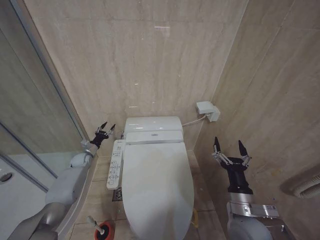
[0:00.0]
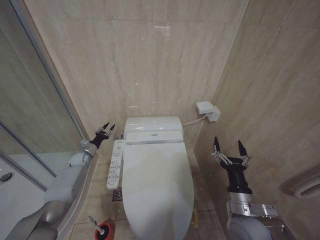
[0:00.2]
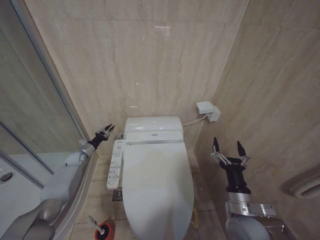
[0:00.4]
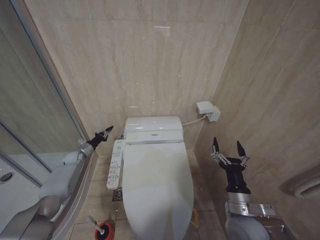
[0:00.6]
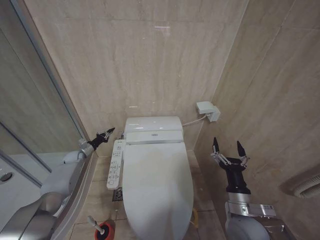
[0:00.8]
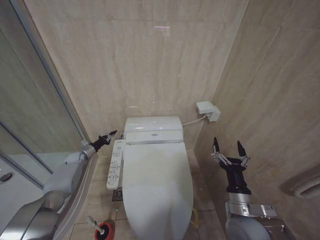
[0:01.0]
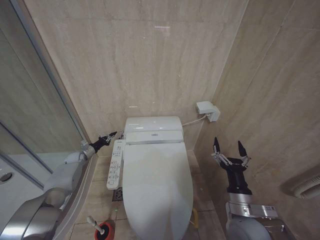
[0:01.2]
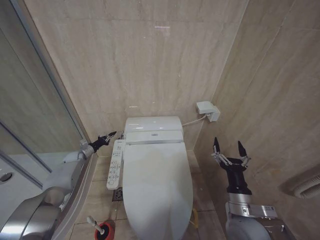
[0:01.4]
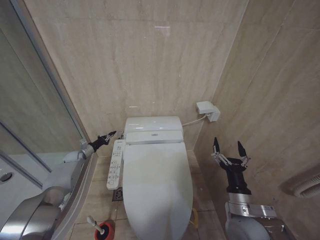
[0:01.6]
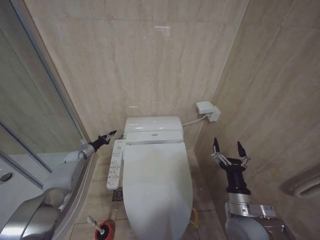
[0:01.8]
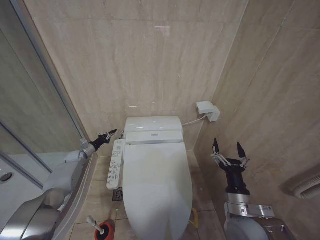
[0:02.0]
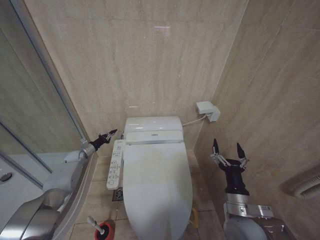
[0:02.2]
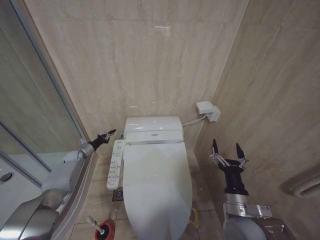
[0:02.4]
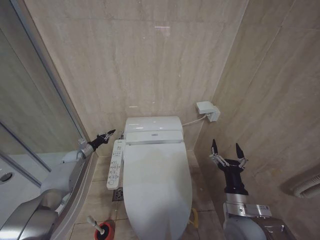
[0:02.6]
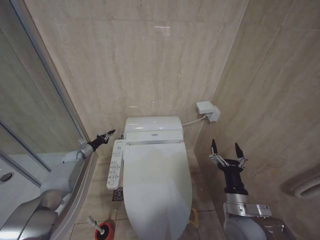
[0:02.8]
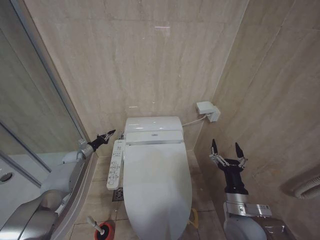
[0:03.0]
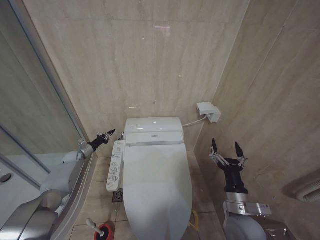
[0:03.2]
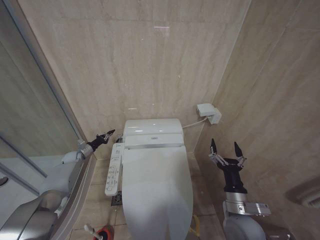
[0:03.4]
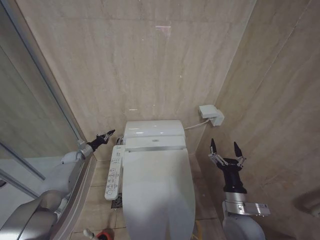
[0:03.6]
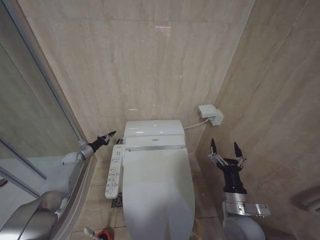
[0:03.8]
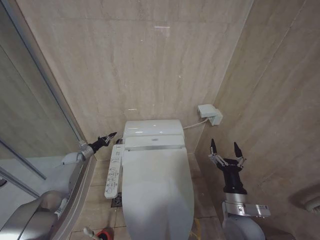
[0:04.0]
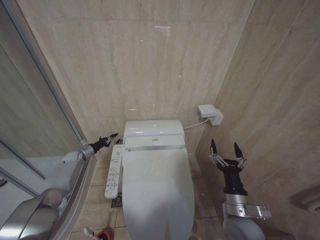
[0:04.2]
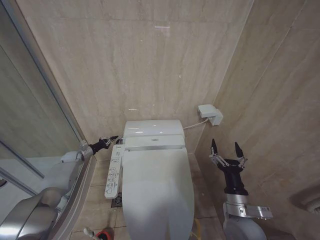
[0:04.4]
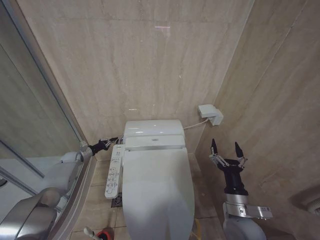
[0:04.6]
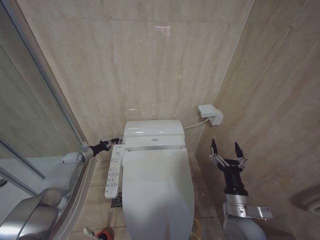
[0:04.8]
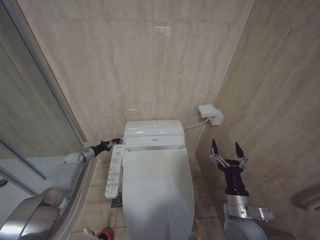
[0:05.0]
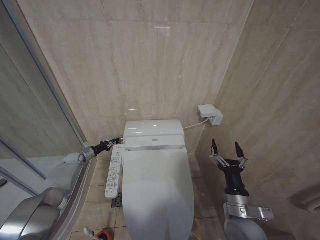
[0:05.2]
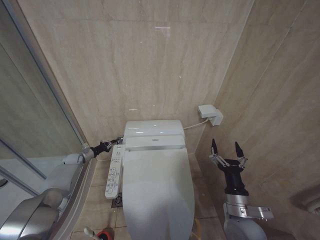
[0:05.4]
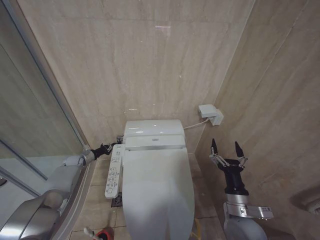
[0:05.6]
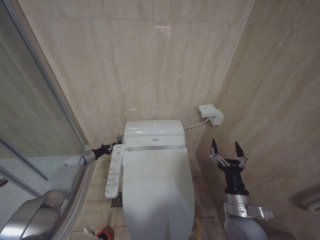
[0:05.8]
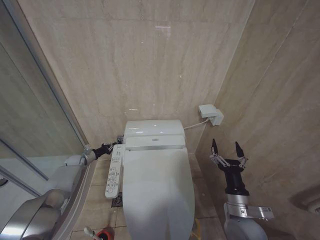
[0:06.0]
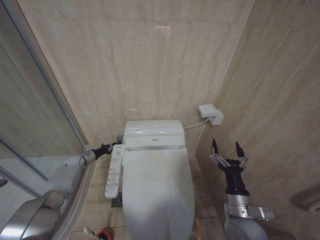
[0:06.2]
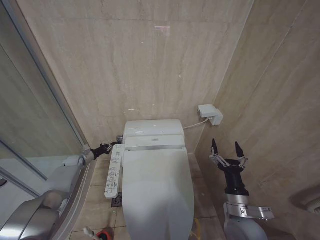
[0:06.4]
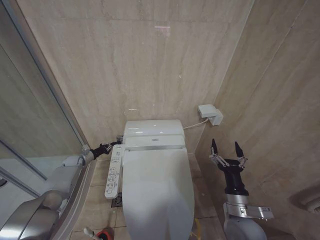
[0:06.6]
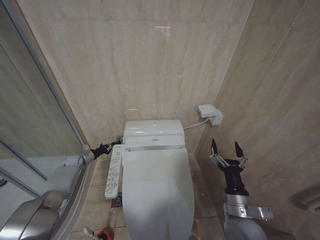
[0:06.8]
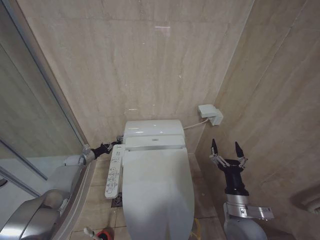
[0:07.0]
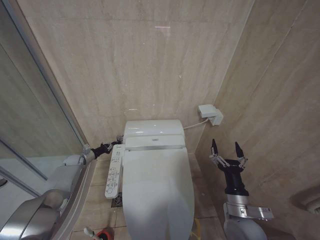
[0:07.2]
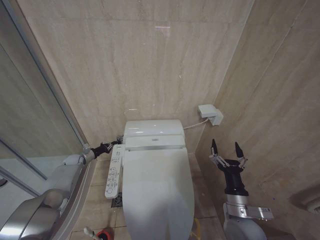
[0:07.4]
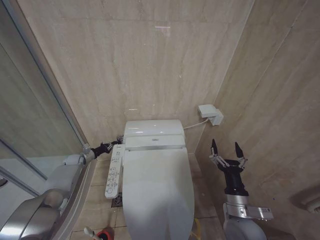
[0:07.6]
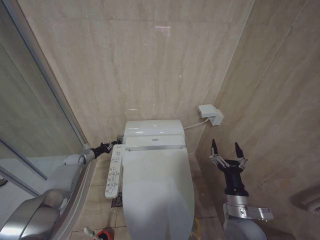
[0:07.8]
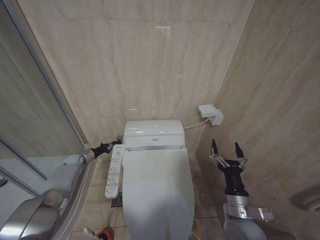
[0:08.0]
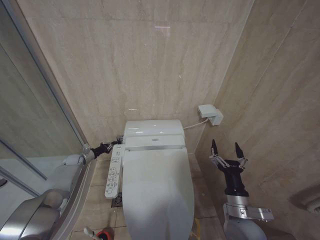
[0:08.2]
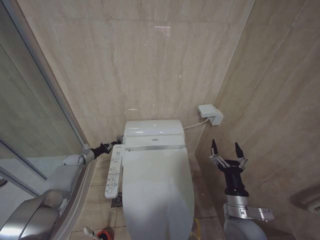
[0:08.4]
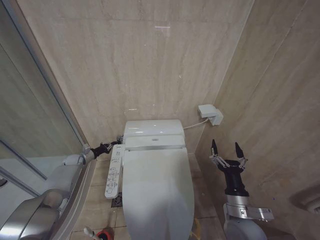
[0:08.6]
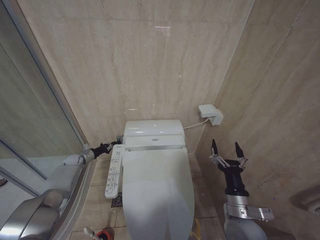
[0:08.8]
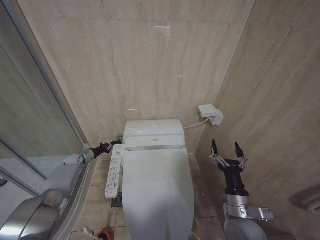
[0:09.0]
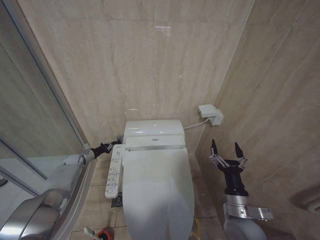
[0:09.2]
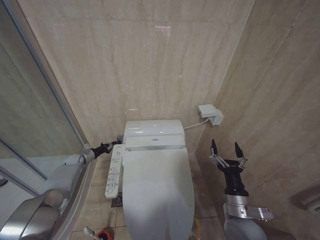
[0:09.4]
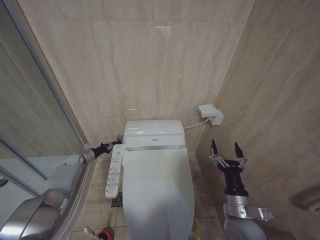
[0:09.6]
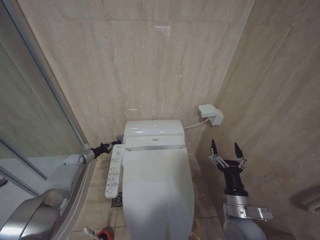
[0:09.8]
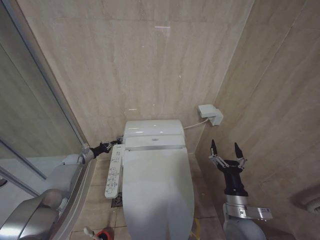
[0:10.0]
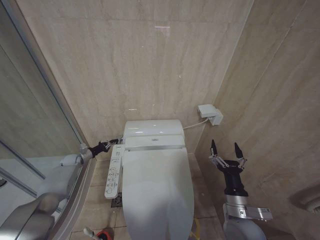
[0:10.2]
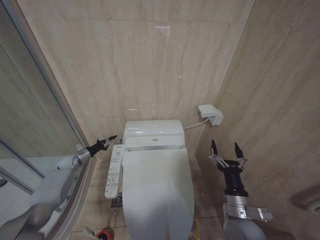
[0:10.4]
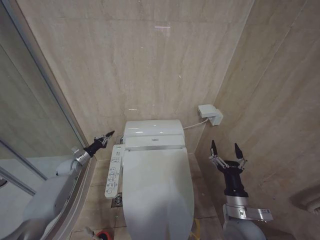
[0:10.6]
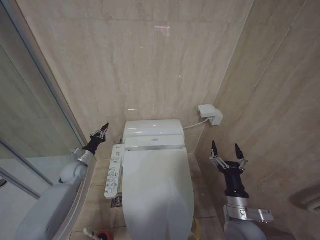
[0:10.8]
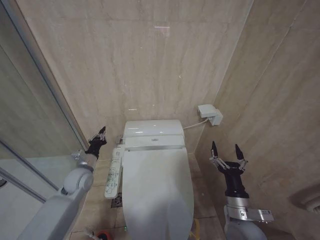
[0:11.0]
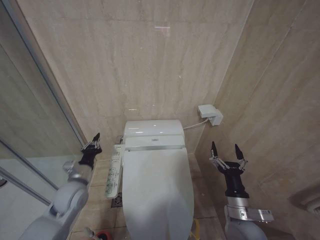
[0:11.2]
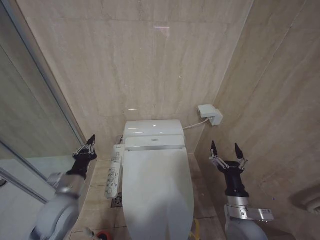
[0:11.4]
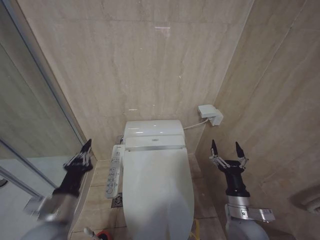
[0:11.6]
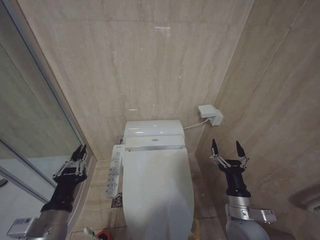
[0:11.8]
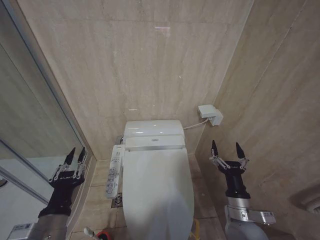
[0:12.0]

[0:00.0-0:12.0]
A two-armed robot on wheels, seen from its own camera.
Task of the whole recording: Open the toilet lid, clean the toilet bowl with a toilet brush, close the toilet lid, and flush.
0:00.0 to 0:01.6: The left gripper moves to the left, some 5 cm, and closes up.
0:01.6 to 0:03.0: Both grippers stay about where they are.
0:03.0 to 0:06.0: The grippers stay close to where they were, moving slightly.
0:06.0 to 0:09.0: The two grippers keep their place.
0:09.0 to 0:10.4: The grippers make only small movements.
0:10.4 to 0:12.0: The left gripper is displaced backward, to the right and upward by roughly 50 cm.

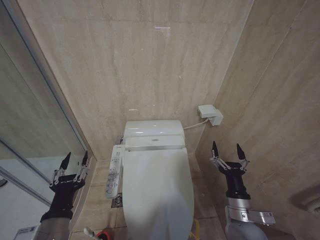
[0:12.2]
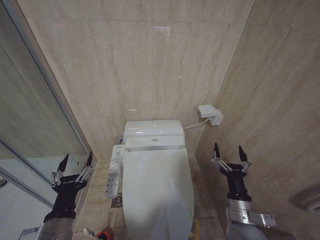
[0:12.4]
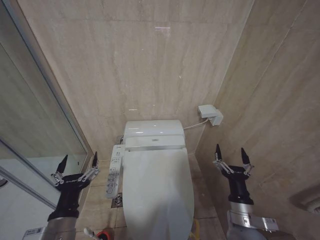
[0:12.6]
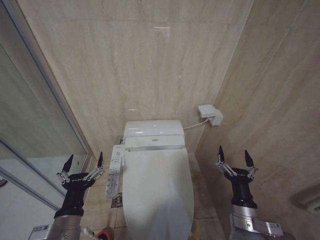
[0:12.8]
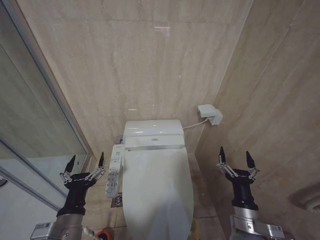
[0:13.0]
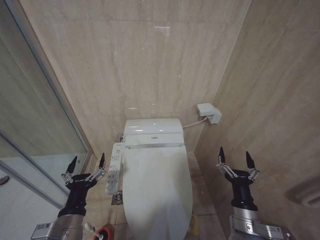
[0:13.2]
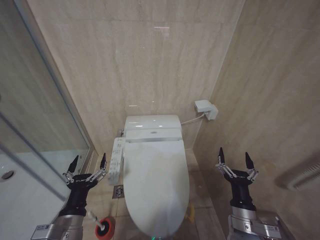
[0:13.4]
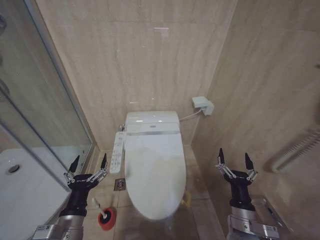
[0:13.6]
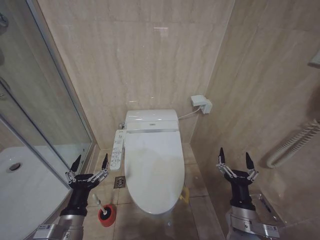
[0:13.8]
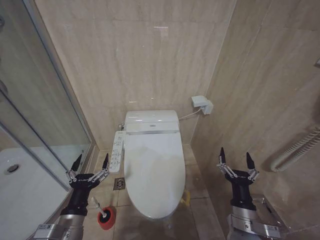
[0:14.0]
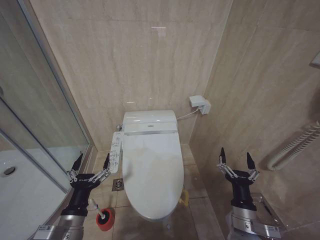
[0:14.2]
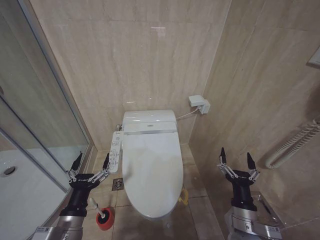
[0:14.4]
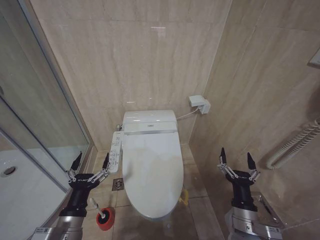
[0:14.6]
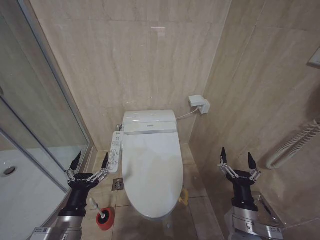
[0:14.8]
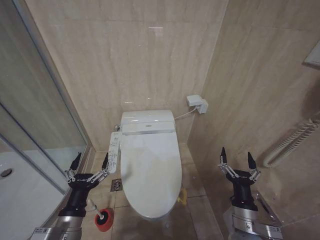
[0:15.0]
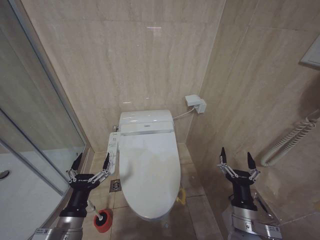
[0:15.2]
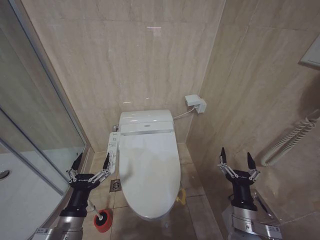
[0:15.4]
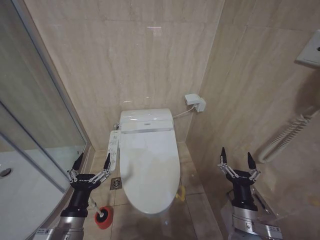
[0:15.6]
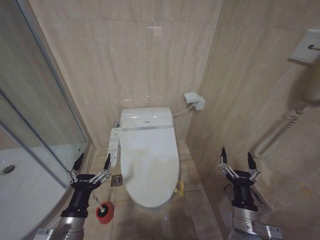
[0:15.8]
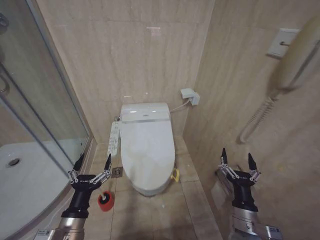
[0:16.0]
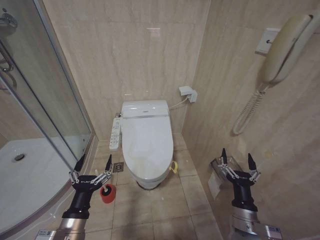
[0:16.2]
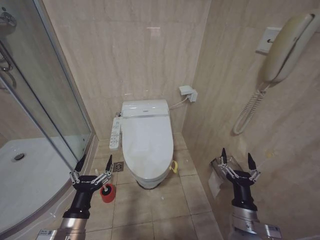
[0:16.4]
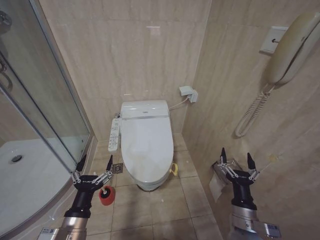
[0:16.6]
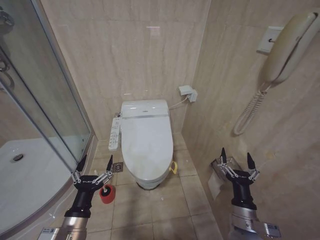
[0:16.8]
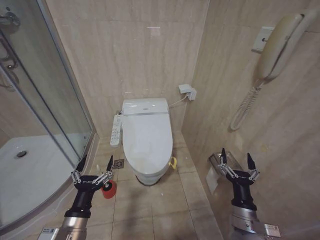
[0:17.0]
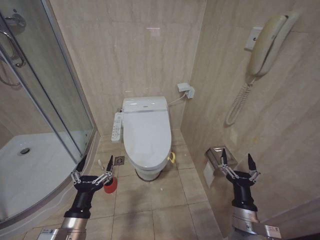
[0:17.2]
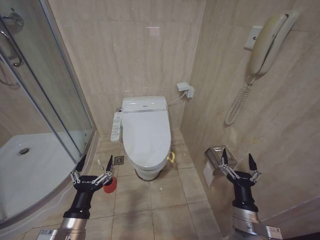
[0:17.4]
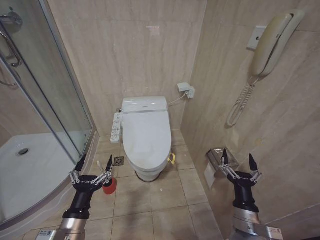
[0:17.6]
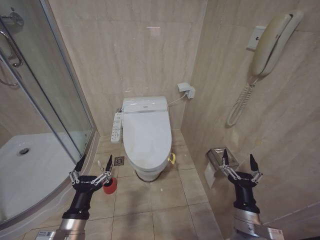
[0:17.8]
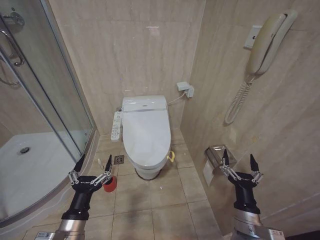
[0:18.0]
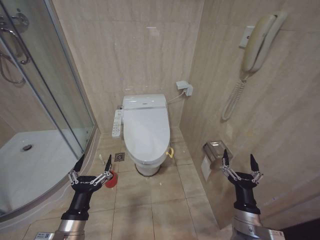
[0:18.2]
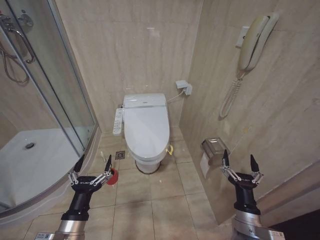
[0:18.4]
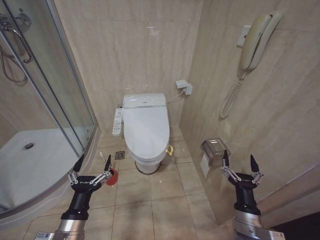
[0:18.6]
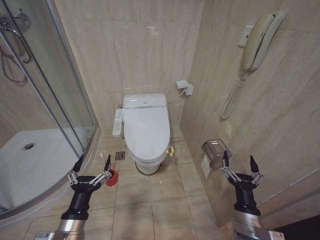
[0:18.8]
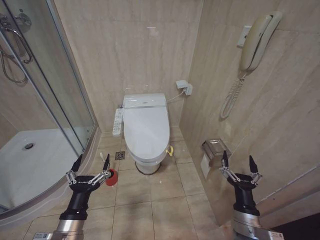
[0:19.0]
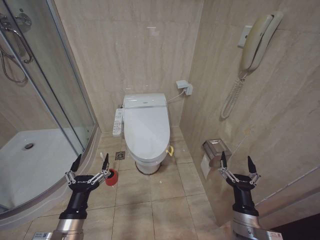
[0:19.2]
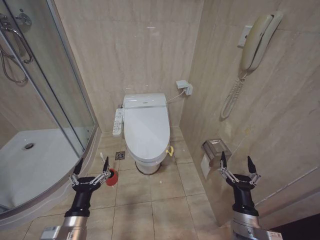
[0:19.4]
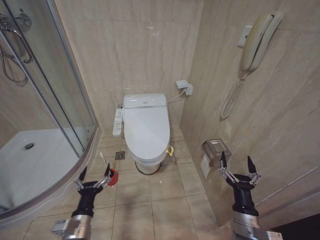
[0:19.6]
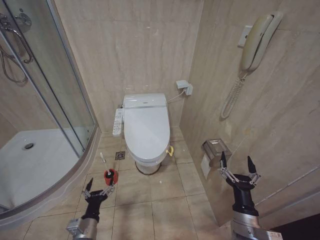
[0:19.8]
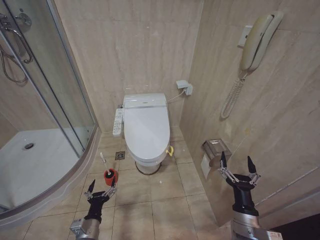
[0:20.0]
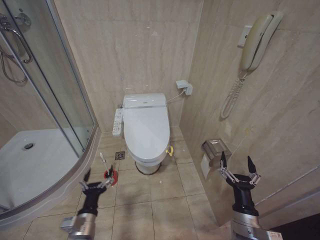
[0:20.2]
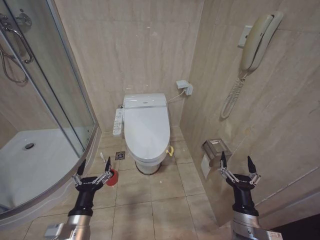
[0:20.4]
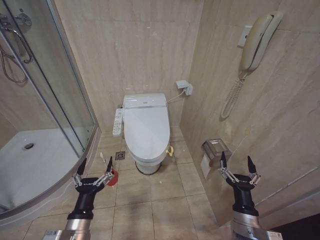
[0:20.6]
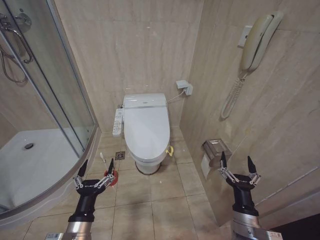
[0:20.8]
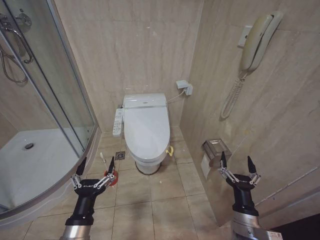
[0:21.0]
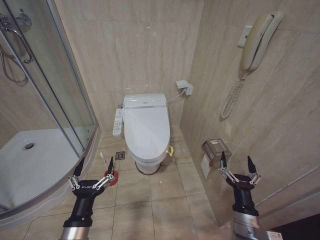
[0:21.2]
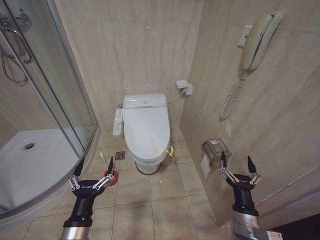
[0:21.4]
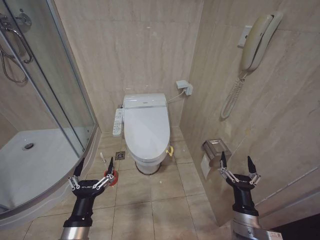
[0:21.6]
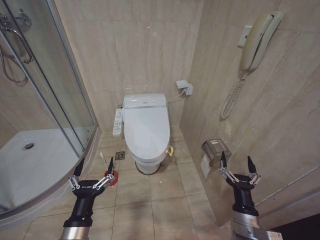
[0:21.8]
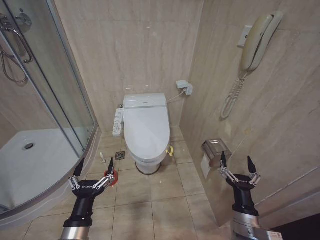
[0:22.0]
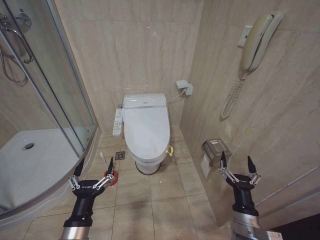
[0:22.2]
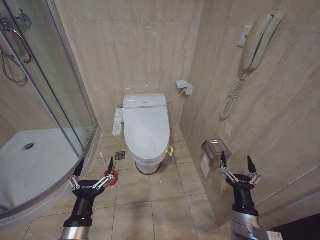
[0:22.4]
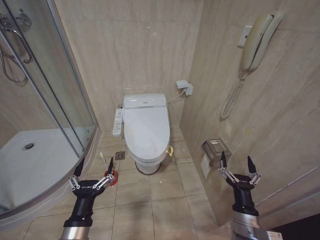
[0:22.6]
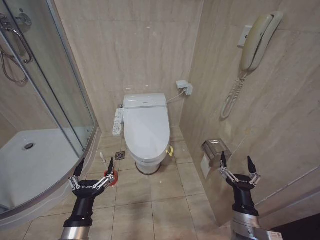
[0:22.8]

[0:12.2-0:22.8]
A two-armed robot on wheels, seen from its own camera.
Task of the whole recording: Open the toilet lid, clean the toilet bowl with a toilet brush, close the toilet lid, and flush.
0:12.2 to 0:13.8: The left gripper opens its fingers.
0:13.8 to 0:15.2: Both grippers stay about where they are.
0:16.8 to 0:18.2: Both grippers stay put.
0:18.2 to 0:19.8: The left gripper is displaced downward by about 10 cm.
0:19.8 to 0:21.2: The left gripper goes some 15 cm upward and backward.
0:21.2 to 0:22.8: The two grippers keep their place.
